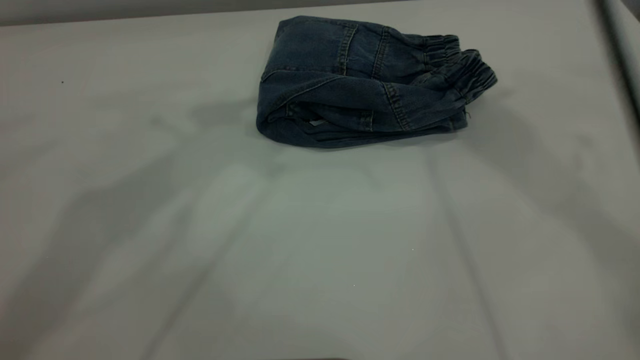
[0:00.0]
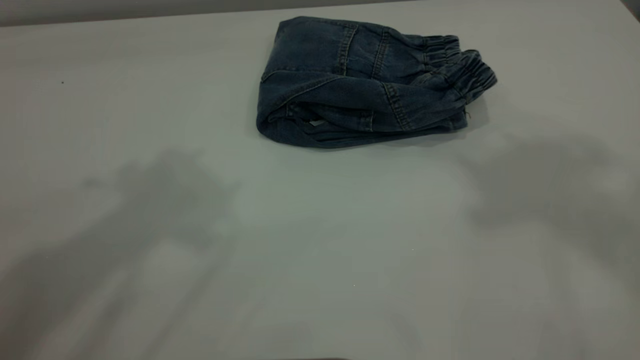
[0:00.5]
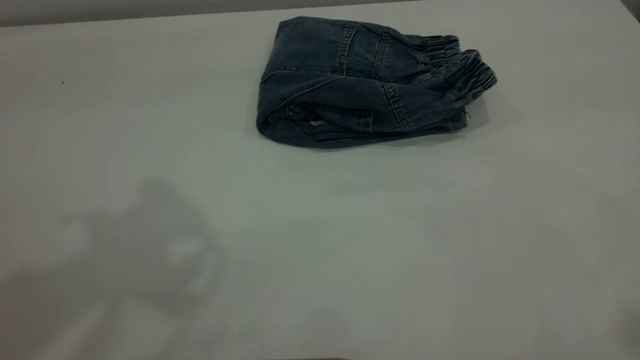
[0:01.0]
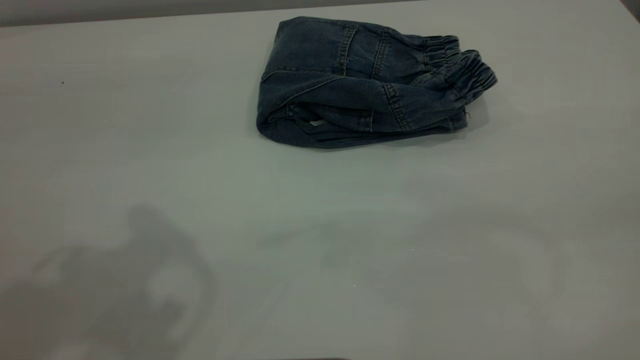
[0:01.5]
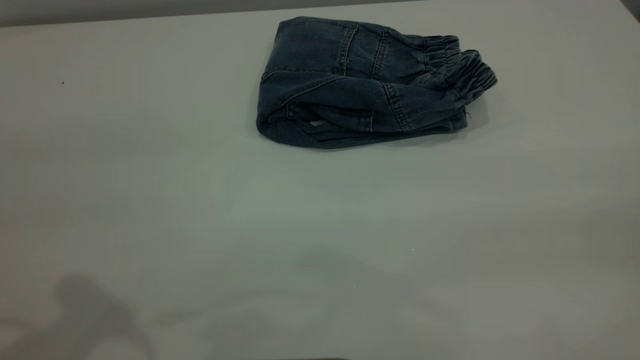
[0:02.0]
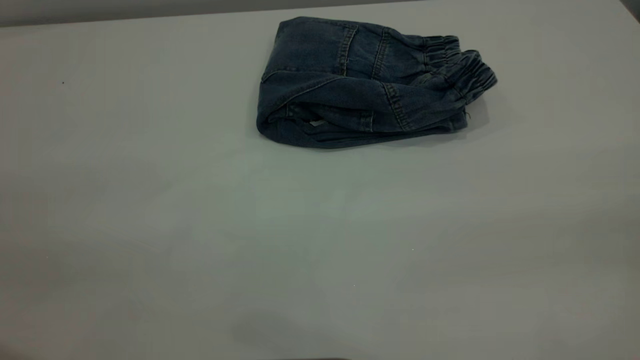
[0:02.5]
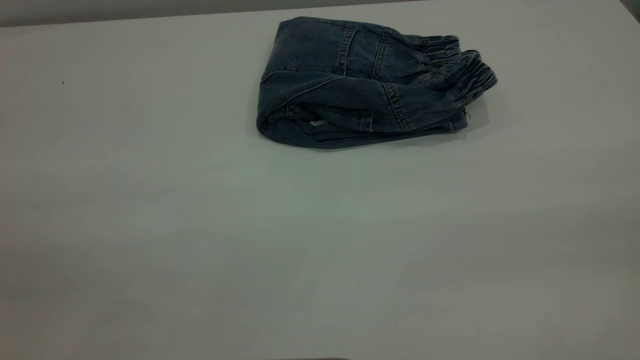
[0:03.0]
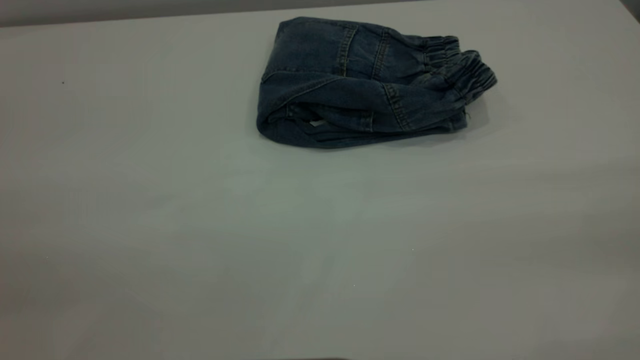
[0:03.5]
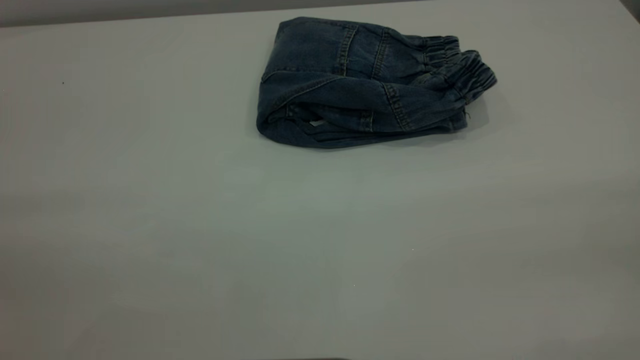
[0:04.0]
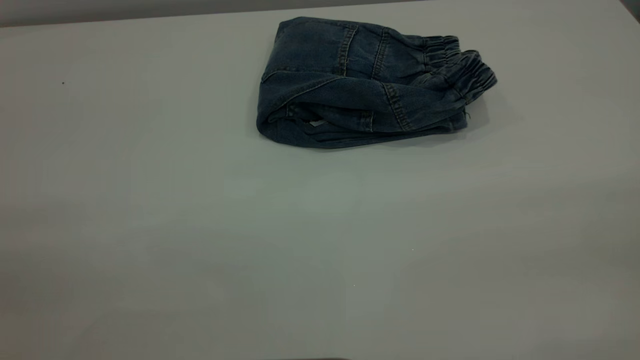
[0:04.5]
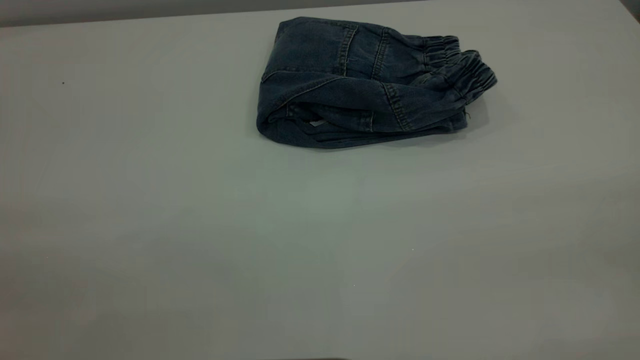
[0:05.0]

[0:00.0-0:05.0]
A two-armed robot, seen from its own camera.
0:00.0 to 0:02.5: The right gripper goes about 35 cm backward.
